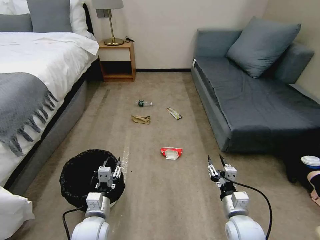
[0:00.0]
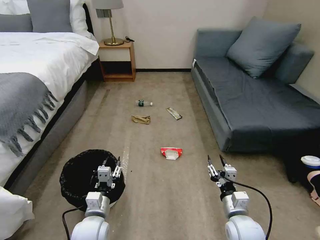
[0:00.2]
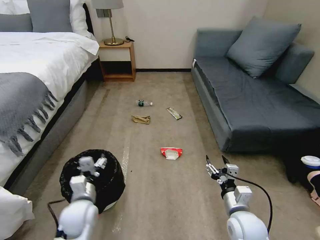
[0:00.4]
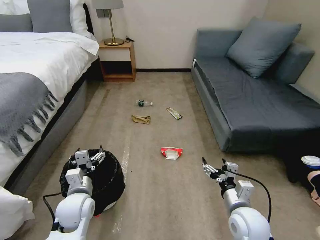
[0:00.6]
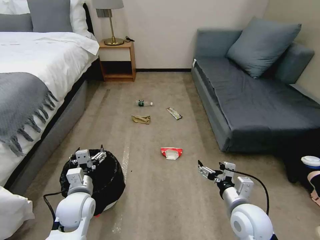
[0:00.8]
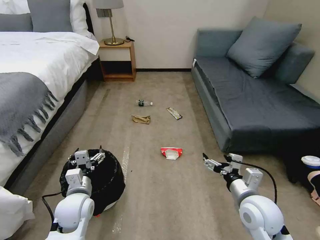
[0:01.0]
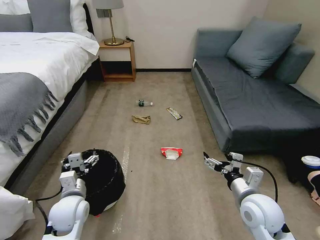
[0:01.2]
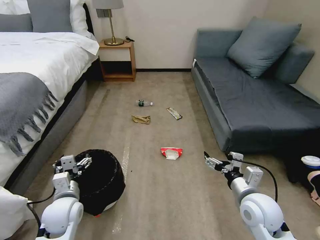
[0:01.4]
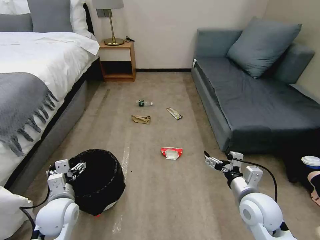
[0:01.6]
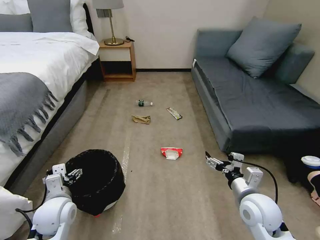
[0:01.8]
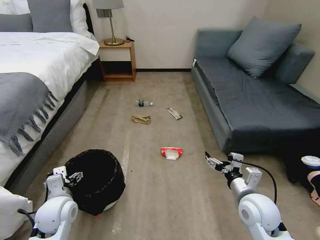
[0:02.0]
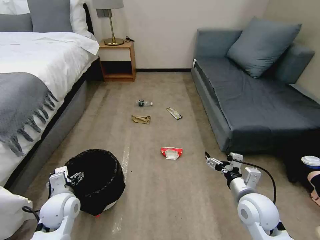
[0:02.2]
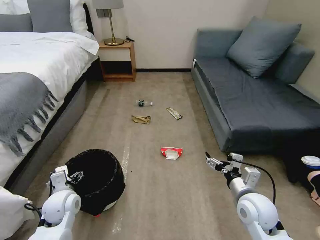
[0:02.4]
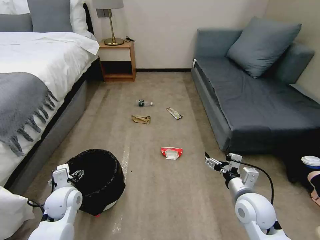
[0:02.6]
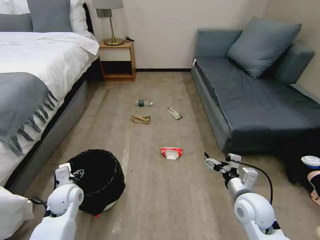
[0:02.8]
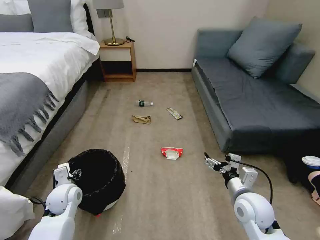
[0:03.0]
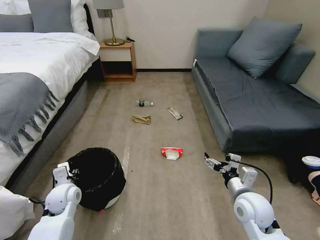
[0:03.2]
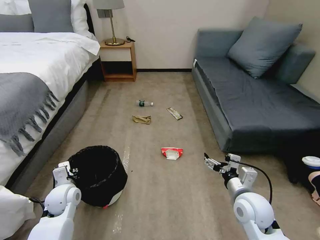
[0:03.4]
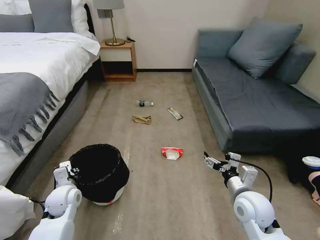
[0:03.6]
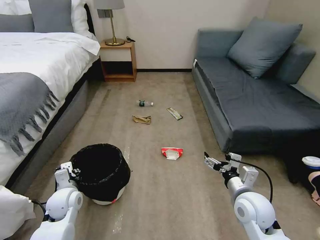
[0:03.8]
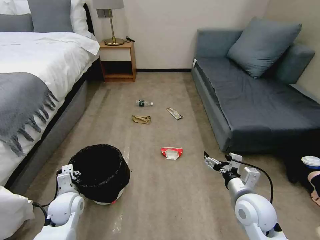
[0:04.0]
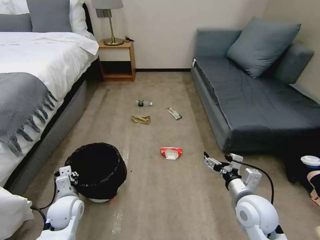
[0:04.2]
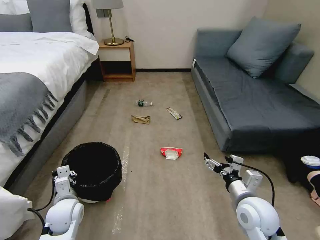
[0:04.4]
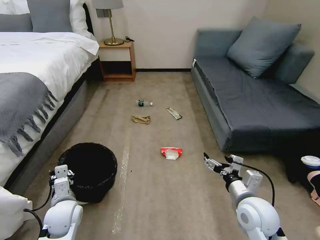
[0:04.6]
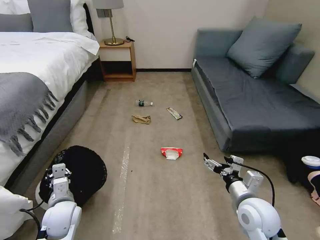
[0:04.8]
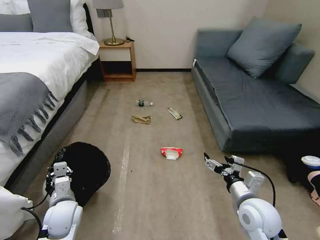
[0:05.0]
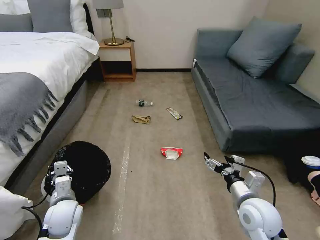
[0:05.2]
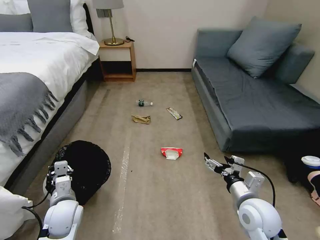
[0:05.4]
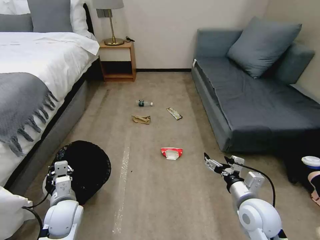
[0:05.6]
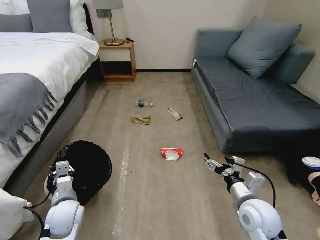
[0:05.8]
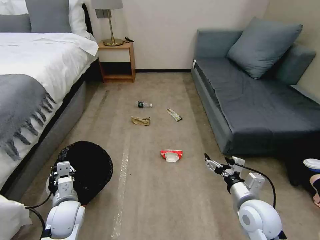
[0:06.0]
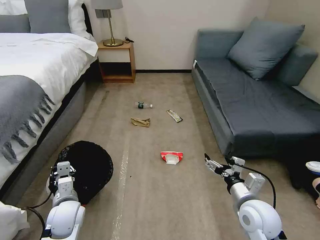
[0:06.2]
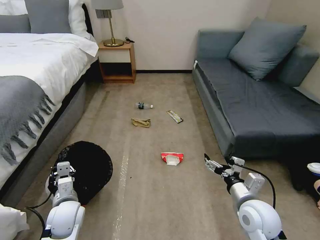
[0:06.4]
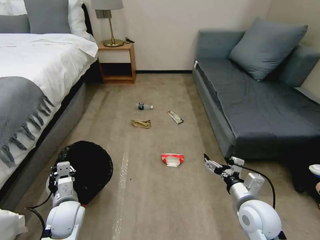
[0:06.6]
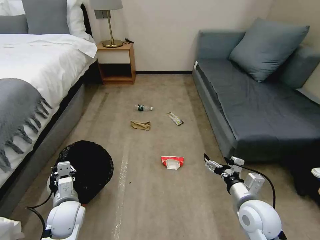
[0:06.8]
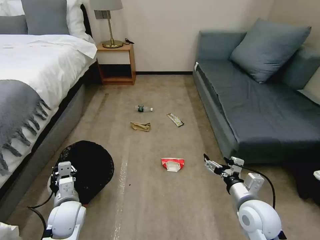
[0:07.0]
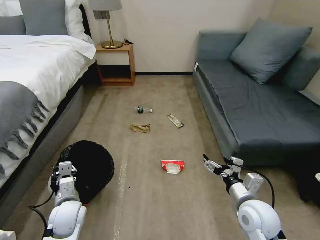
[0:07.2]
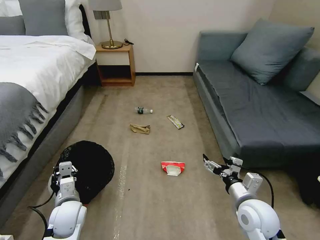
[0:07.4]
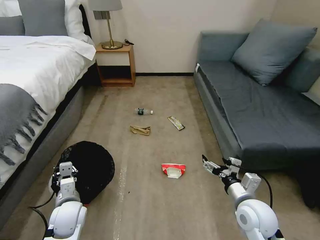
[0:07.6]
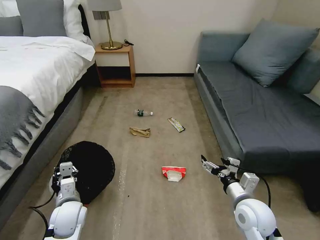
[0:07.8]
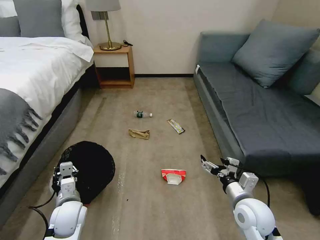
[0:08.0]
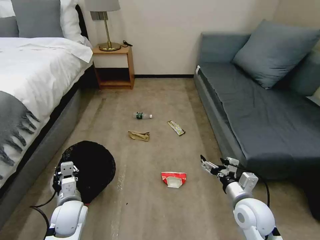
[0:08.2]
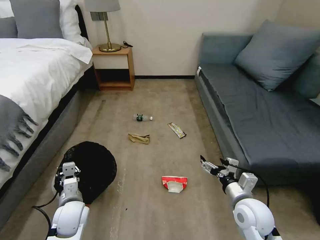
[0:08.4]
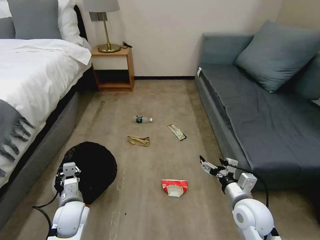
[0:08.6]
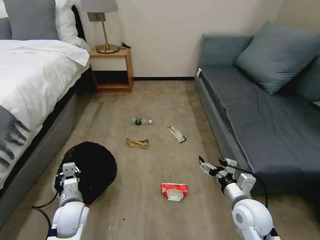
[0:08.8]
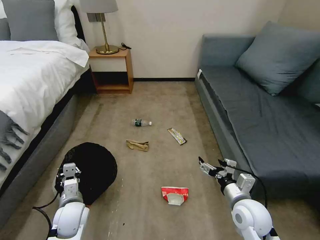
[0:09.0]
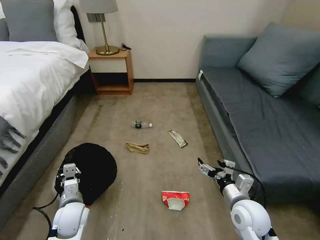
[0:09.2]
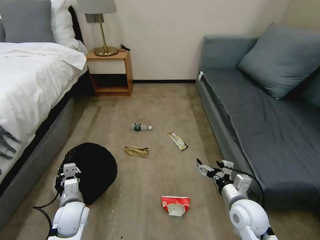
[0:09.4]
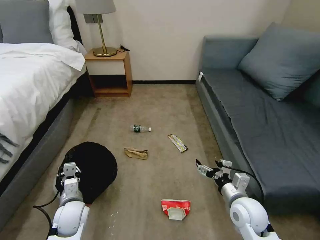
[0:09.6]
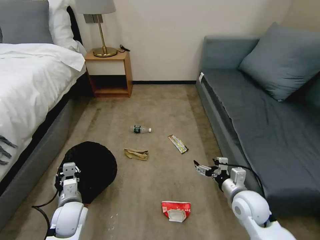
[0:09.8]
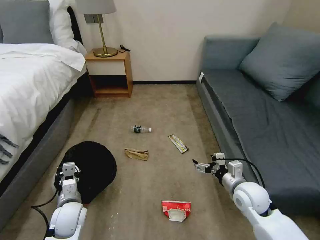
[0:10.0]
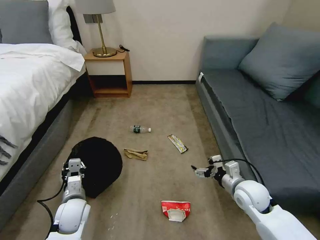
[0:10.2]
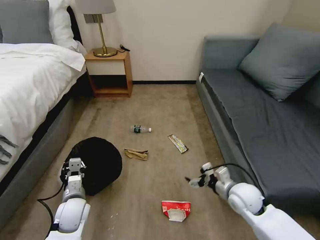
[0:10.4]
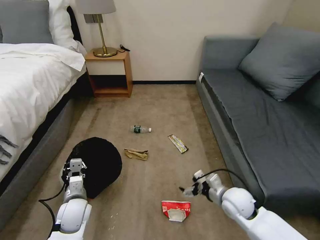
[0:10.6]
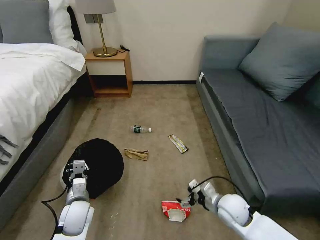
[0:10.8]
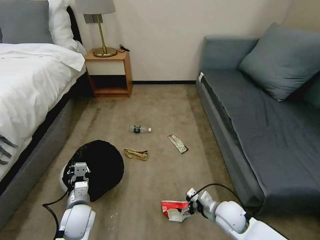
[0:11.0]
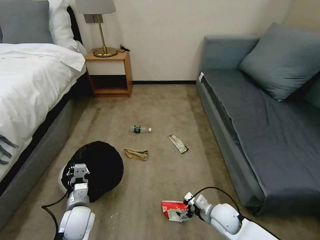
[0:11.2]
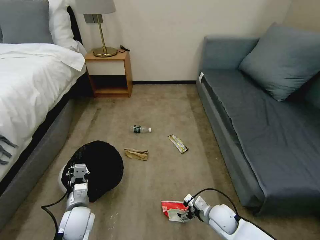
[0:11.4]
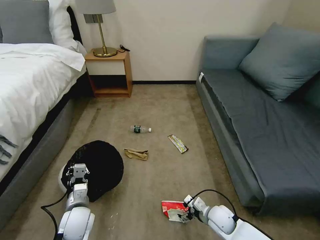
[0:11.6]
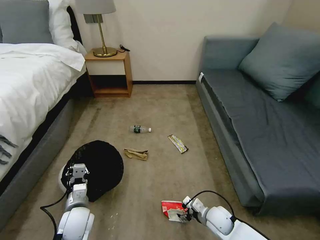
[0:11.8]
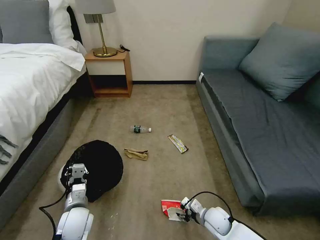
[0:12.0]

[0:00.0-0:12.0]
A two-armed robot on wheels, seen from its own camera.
Task of the whole recording: Pick up the trash bin, then pick up the garbage on the floor and place it into the trash bin.
0:01.6 to 0:03.0: The left gripper goes approximately 5 cm forward.
0:03.0 to 0:04.4: The left gripper moves some 5 cm, and closes.
0:04.4 to 0:06.0: The grippers stay close to where they were, moving slightly.
0:09.0 to 0:10.4: The right gripper moves forward, some 5 cm.
0:10.4 to 0:12.0: The right gripper shifts approximately 15 cm downward and to the left, and closes its fingers.

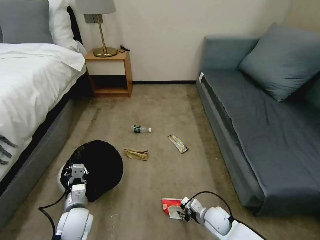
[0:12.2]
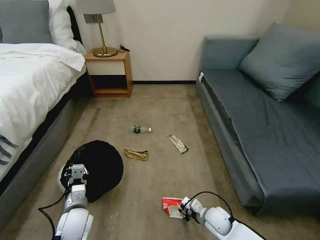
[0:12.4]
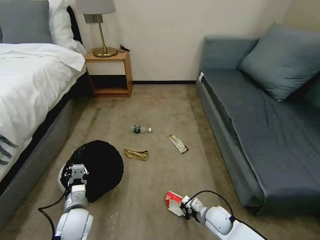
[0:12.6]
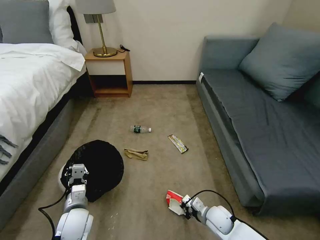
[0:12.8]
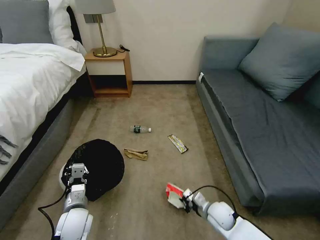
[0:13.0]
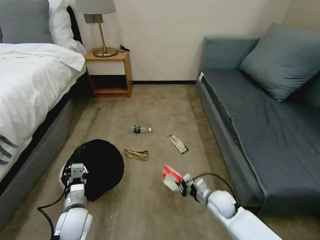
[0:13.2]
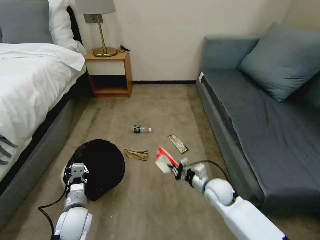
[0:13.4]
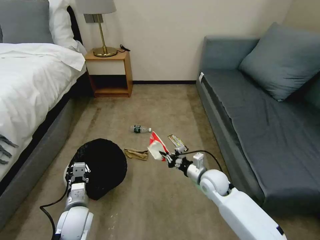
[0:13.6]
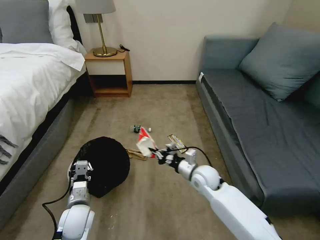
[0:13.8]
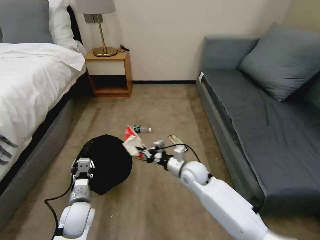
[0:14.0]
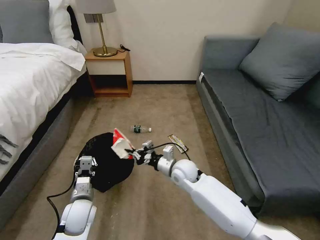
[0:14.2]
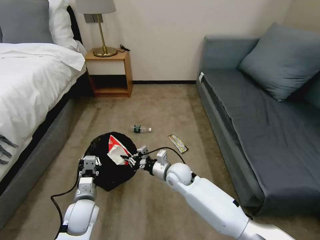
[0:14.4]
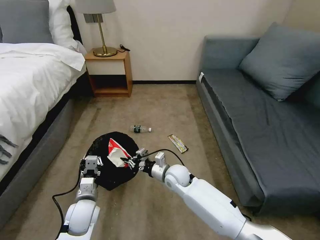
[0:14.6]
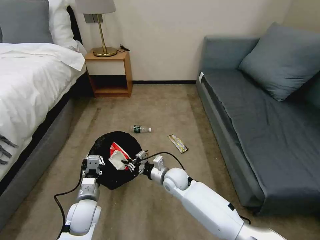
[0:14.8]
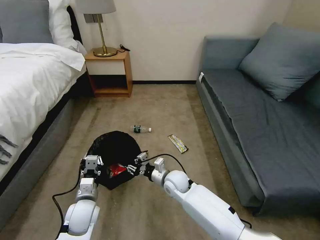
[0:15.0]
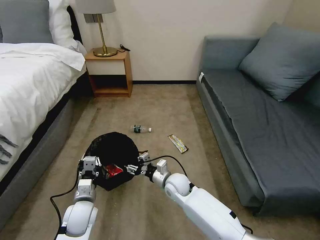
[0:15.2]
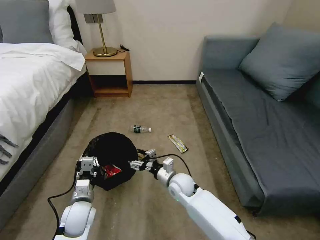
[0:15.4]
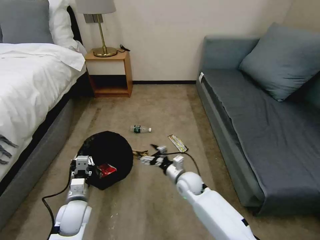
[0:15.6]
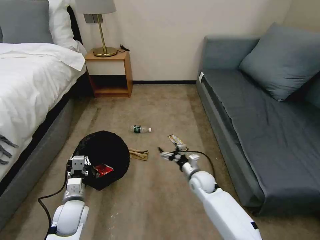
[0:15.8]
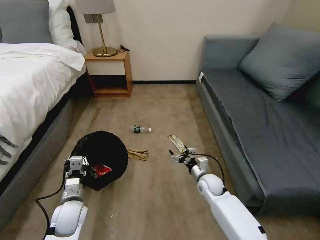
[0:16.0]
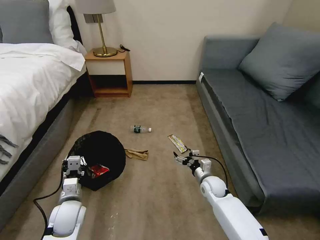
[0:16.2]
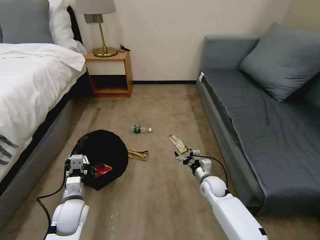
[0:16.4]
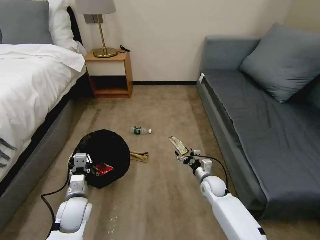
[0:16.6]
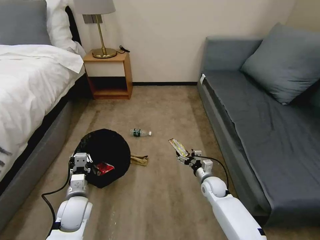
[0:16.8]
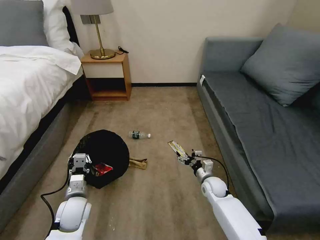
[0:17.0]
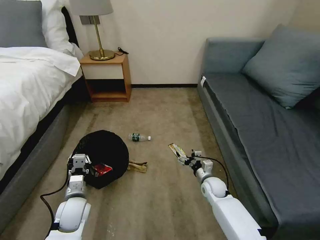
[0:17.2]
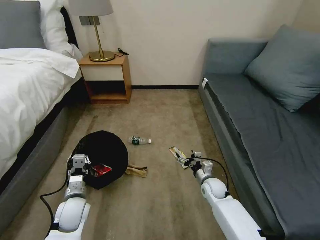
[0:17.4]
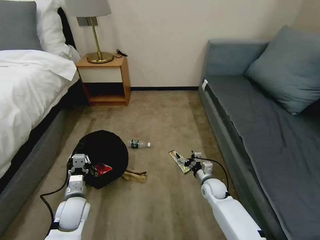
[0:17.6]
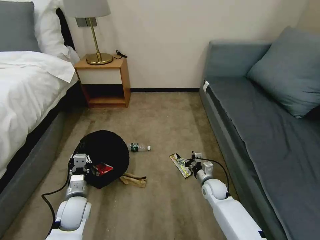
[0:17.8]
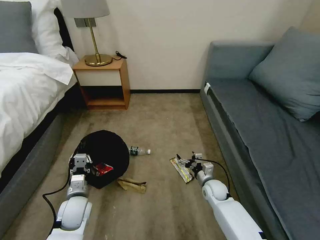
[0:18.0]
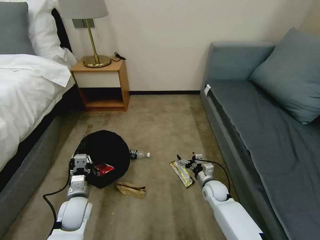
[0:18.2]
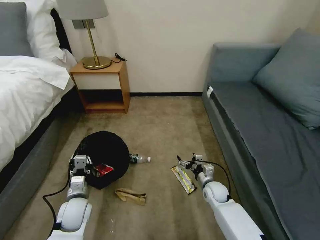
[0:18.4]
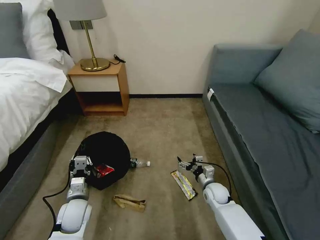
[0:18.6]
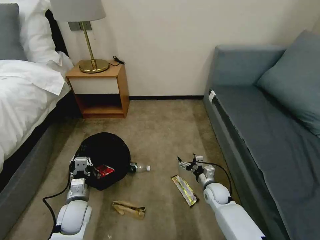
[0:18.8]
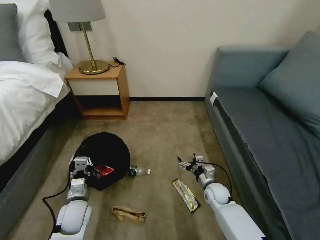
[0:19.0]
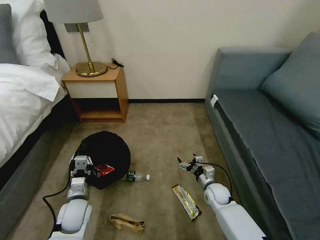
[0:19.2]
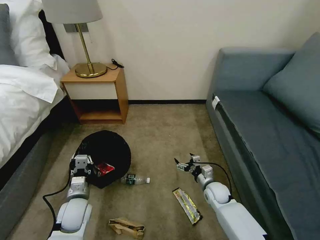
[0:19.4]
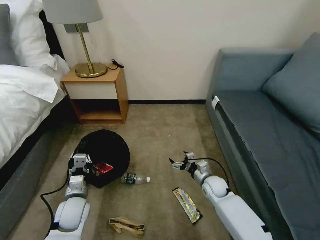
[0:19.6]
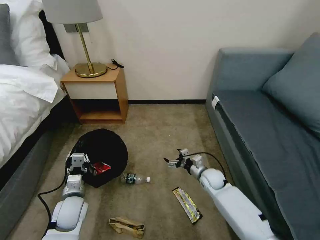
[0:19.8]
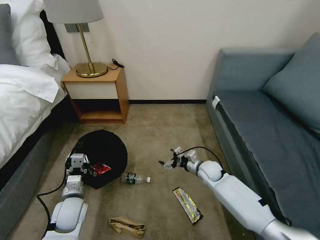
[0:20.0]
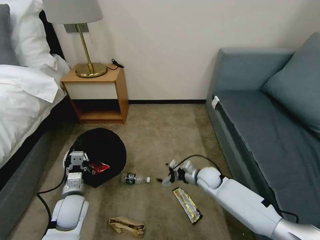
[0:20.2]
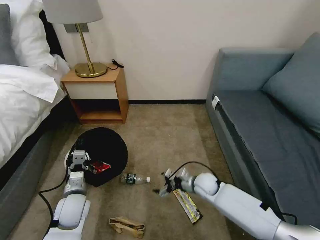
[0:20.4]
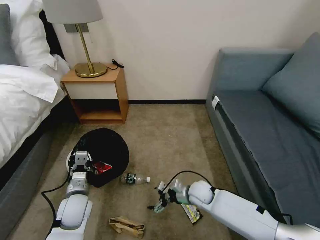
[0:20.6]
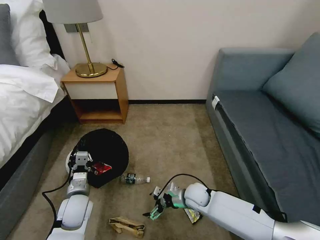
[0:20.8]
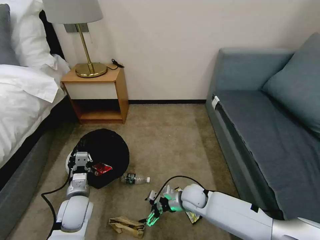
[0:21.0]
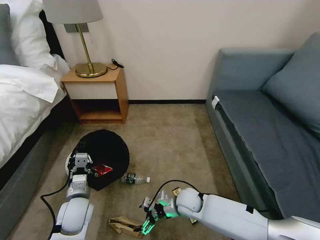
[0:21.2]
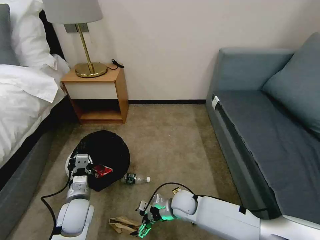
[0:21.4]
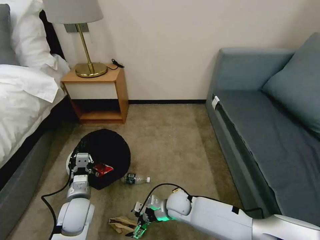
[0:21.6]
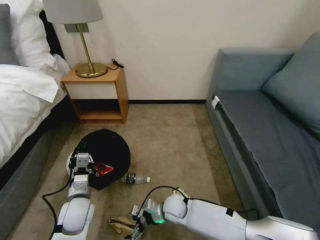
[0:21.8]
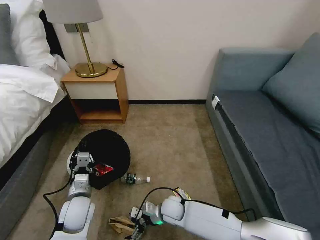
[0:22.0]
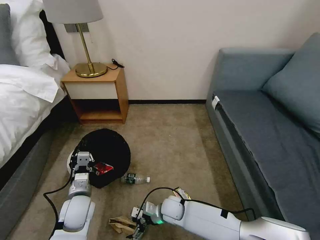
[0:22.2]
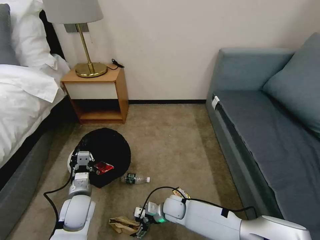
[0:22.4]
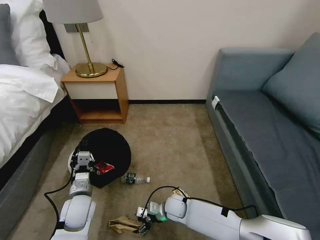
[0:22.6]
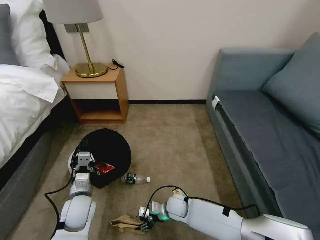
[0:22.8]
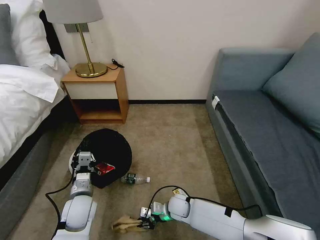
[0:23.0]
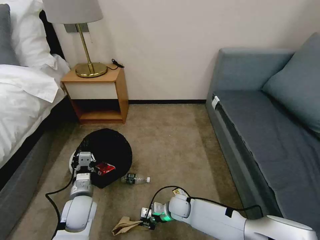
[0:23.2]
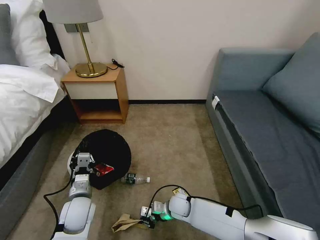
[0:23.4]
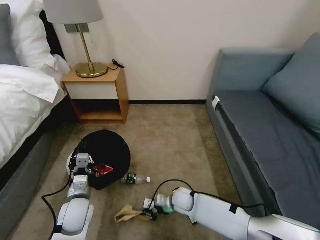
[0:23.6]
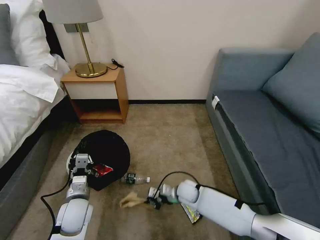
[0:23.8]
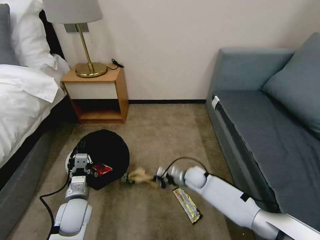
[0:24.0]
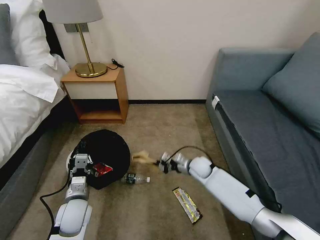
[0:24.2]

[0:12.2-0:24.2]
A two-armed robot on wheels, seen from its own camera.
Task of the whole recording: Pick up the trash bin, then pick up the garbage on the floor and place it into the trash bin.
0:12.2 to 0:13.8: The right gripper shifts roughly 20 cm upward and forward, and closes.
0:13.8 to 0:15.2: The right gripper is displaced to the left and downward by some 10 cm, and opens.
0:15.2 to 0:16.6: The right gripper heads to the right, covering about 15 cm, and opens its fingers.
0:18.2 to 0:19.8: The right gripper changes place by about 5 cm.
0:19.8 to 0:21.2: The right gripper goes approximately 15 cm to the left and backward.
0:21.2 to 0:22.6: The right gripper travels downward by approximately 5 cm.
0:22.6 to 0:24.2: The right gripper shifts approximately 20 cm forward, to the right and upward, and closes.
